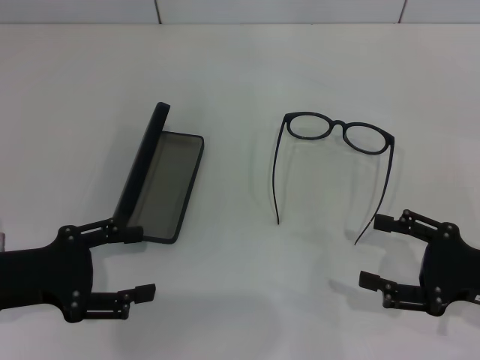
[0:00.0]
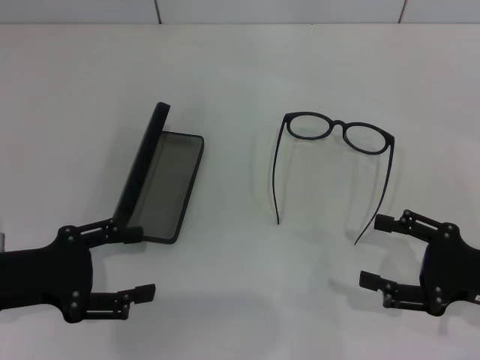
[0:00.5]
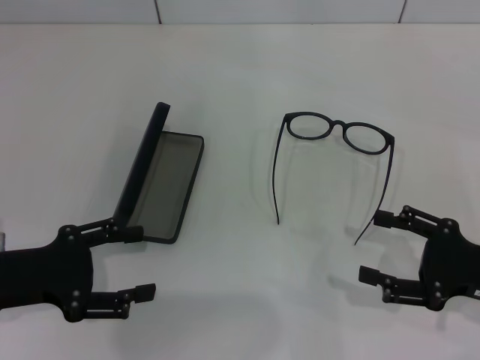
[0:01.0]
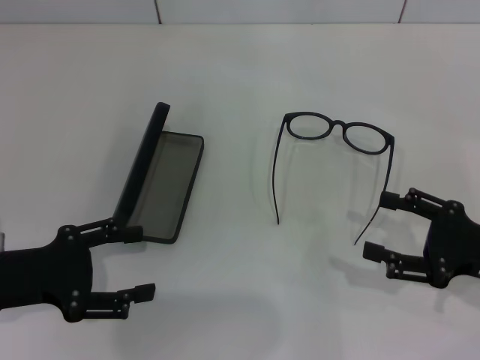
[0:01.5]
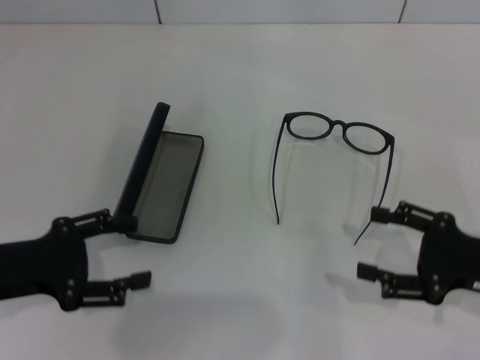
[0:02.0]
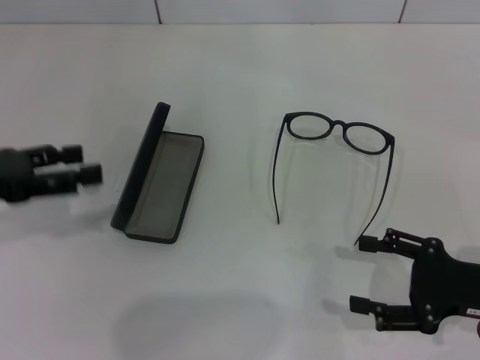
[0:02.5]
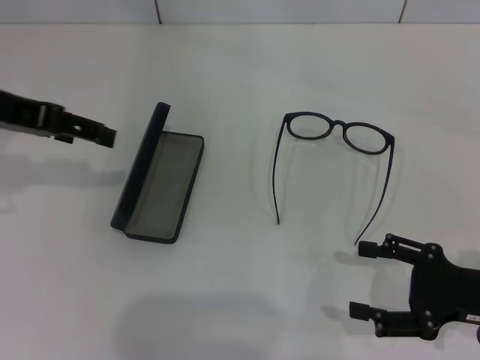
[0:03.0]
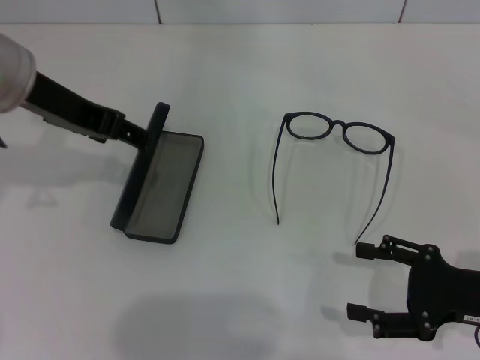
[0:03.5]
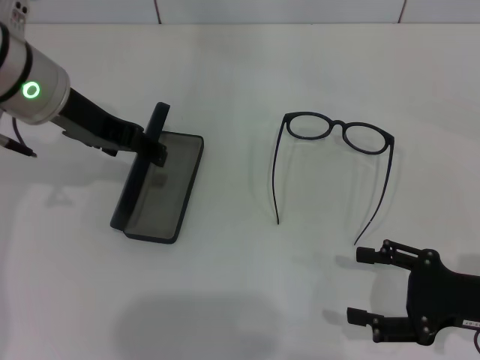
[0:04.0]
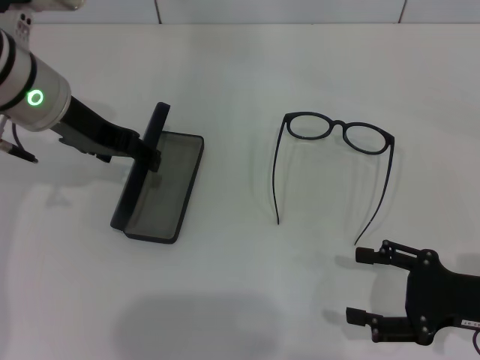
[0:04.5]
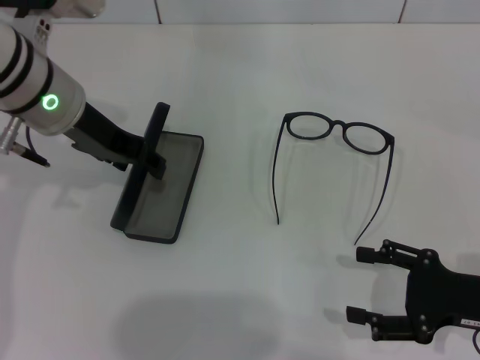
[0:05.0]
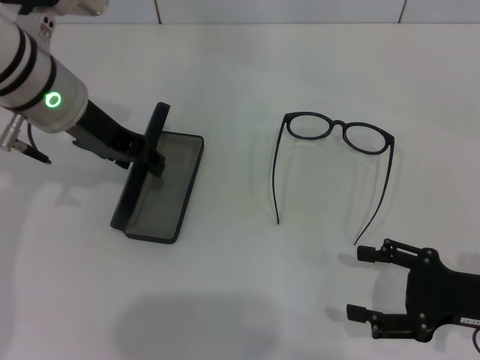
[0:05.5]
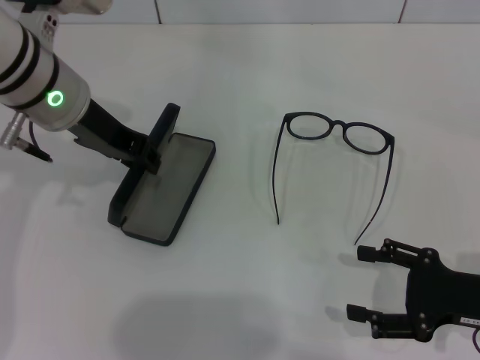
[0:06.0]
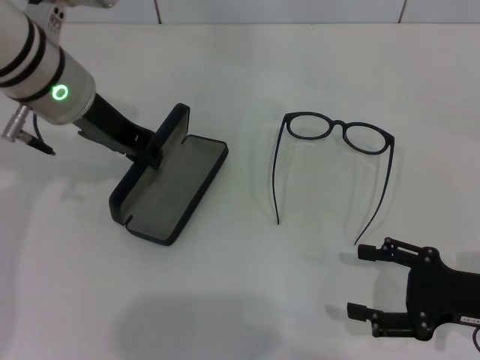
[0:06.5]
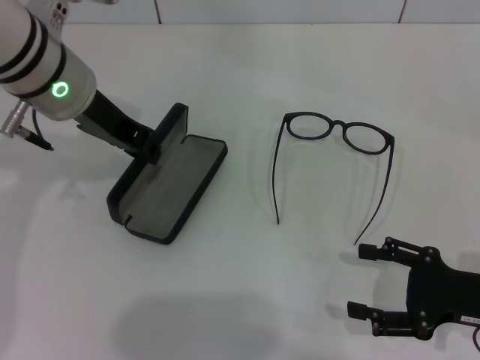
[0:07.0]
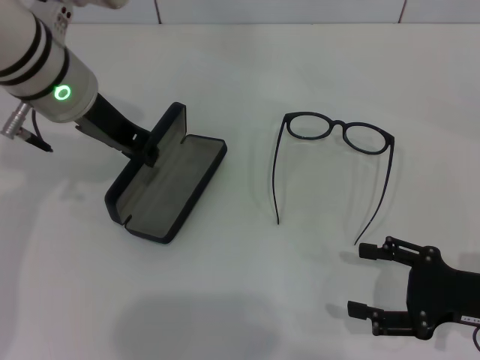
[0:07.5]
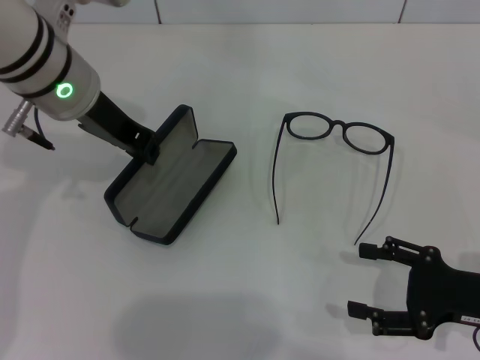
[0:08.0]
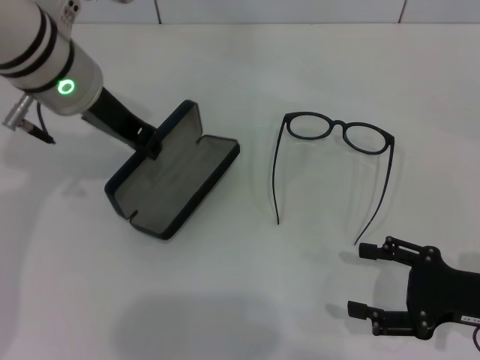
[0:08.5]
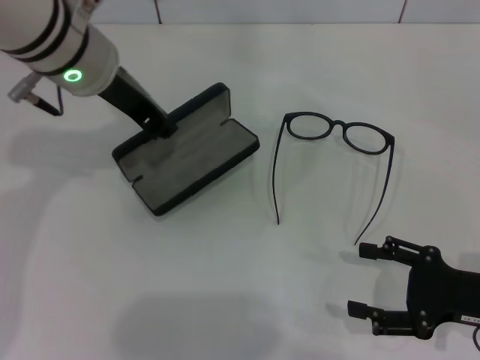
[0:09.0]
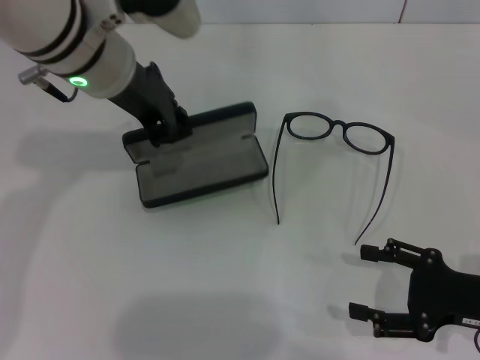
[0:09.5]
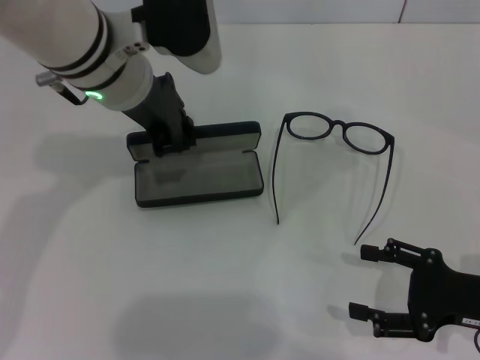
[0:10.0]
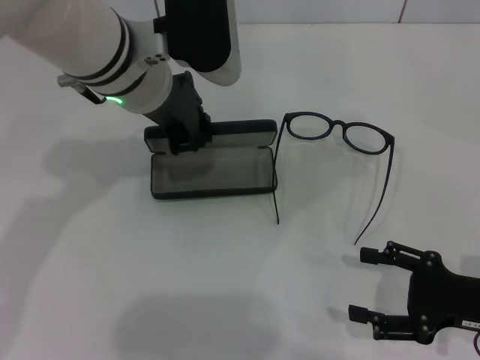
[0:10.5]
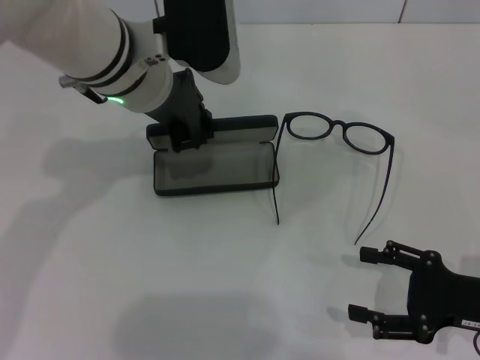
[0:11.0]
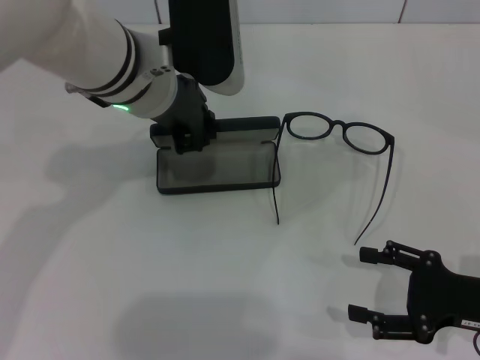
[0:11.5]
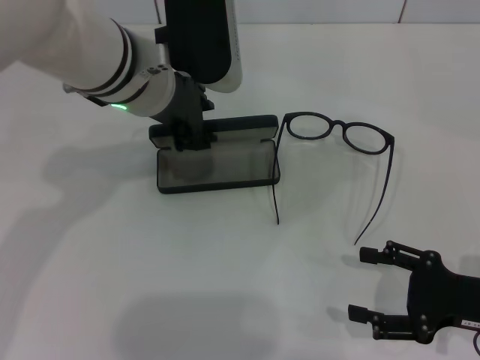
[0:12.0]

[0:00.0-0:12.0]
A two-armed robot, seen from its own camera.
Step, 0:00.0 to 0:07.0: Grab the glasses case with your left hand.
Step, 0:07.5 to 0:11.5: Place the glasses case in the center of the table with your left hand.
0:00.0 to 0:02.0: The grippers move only a little.
0:02.0 to 0:04.0: The left gripper goes about 20 cm forward, upward and to the right.
0:04.0 to 0:06.0: The left gripper closes up.
0:06.0 to 0:08.0: The grippers make only small movements.
0:10.0 to 0:12.0: The grippers make only small movements.

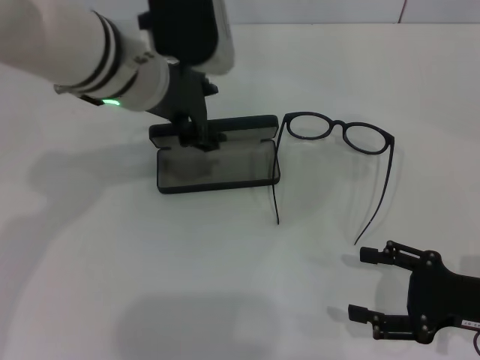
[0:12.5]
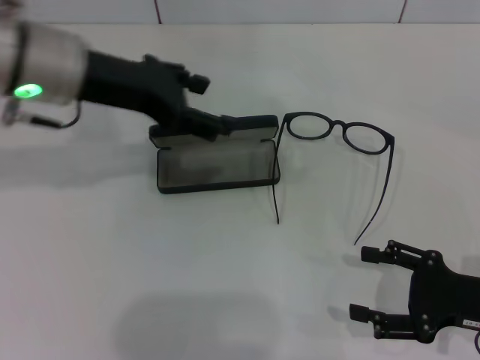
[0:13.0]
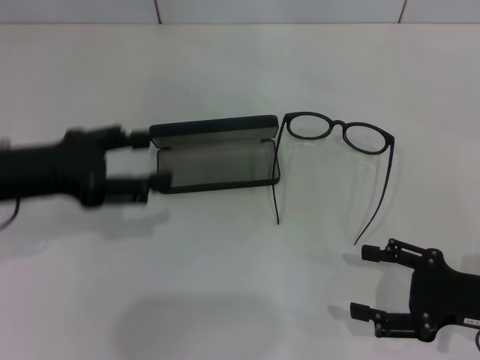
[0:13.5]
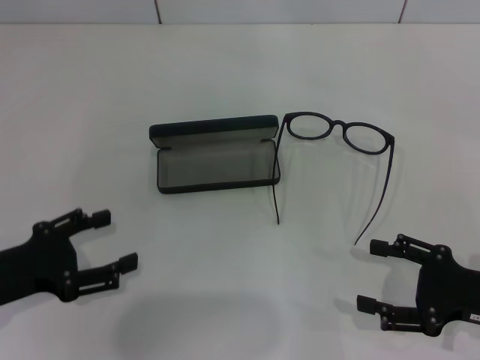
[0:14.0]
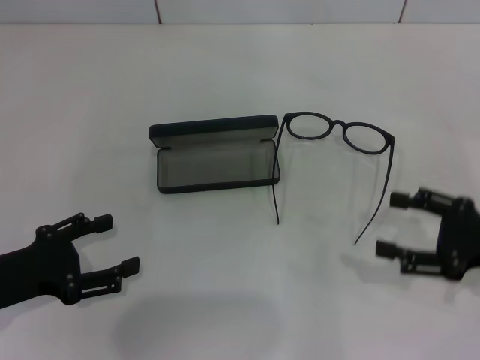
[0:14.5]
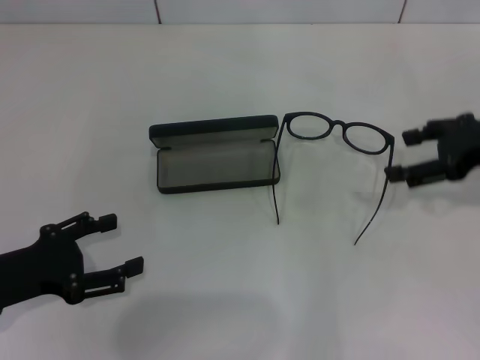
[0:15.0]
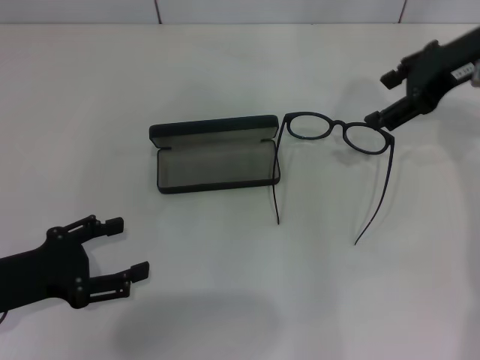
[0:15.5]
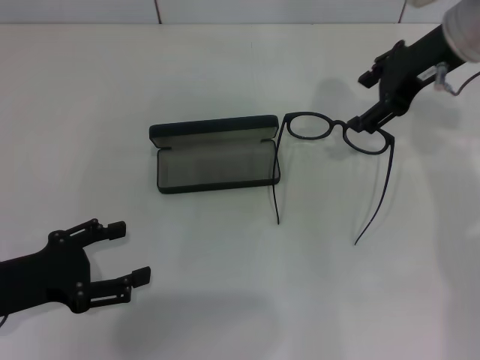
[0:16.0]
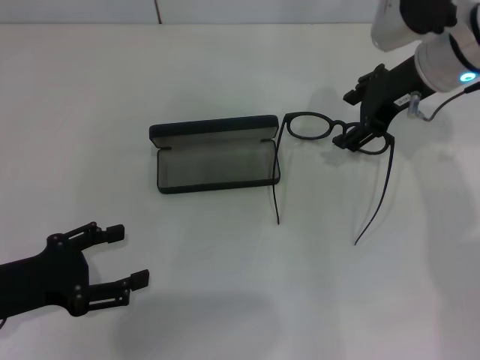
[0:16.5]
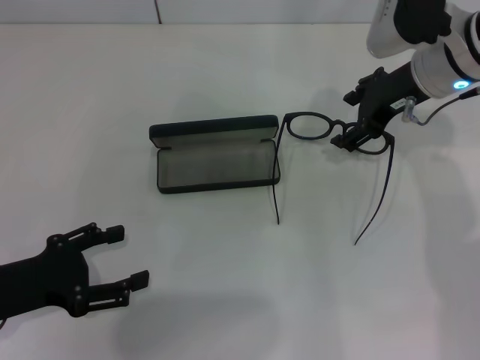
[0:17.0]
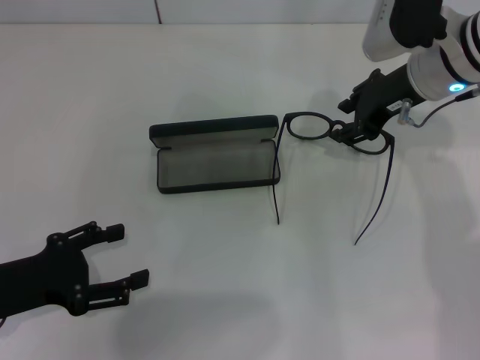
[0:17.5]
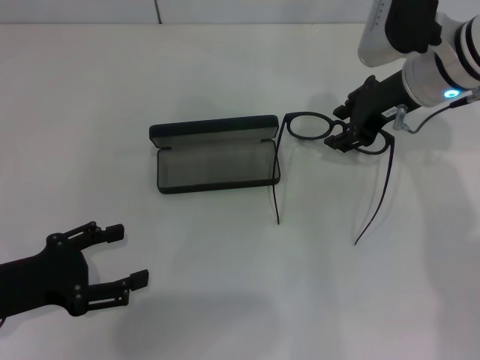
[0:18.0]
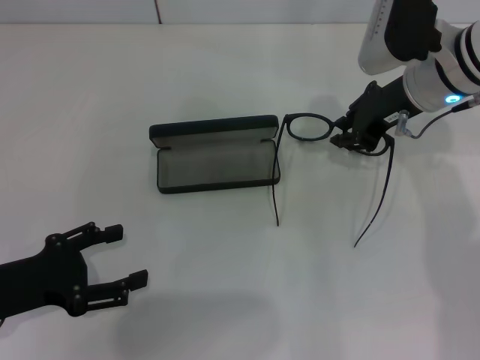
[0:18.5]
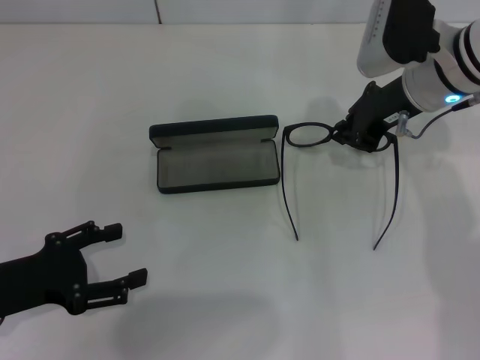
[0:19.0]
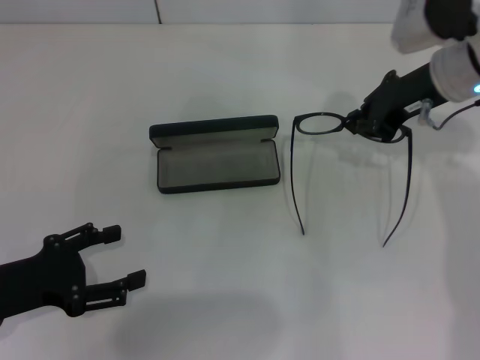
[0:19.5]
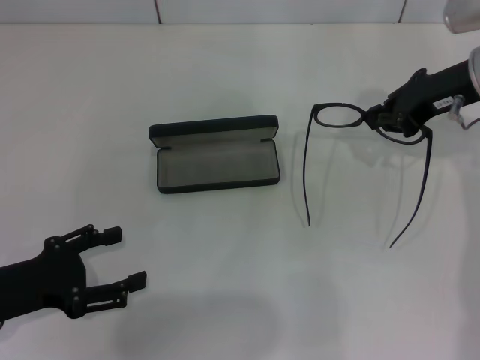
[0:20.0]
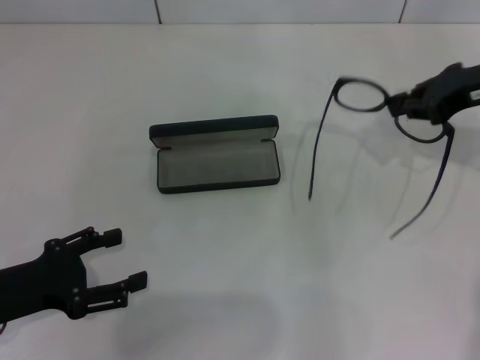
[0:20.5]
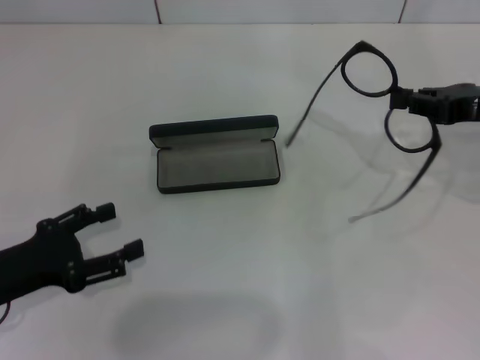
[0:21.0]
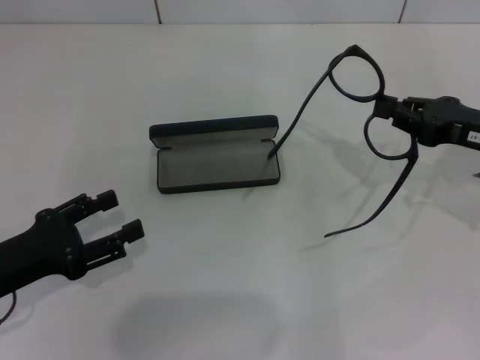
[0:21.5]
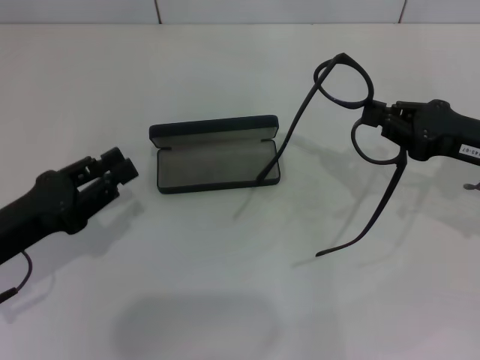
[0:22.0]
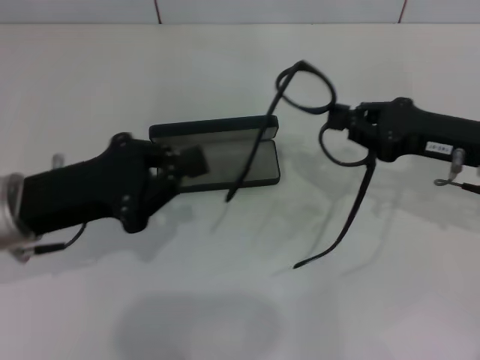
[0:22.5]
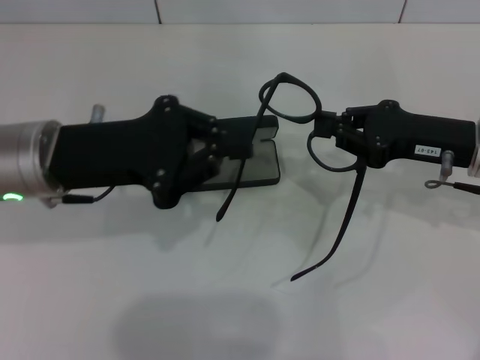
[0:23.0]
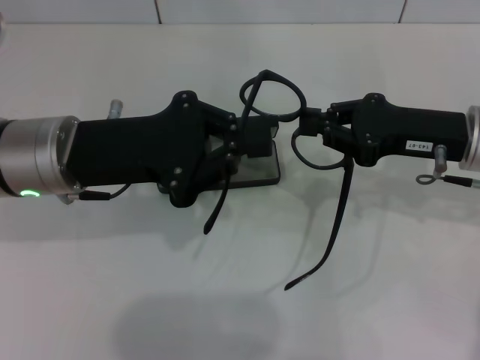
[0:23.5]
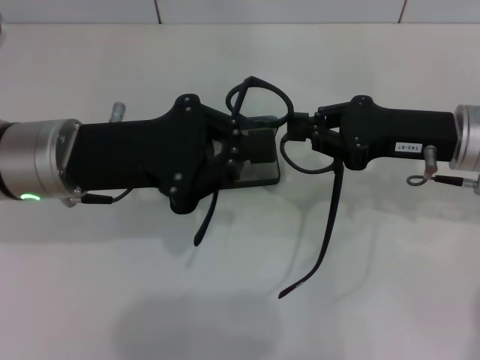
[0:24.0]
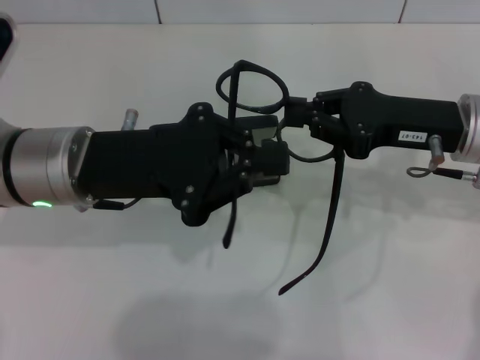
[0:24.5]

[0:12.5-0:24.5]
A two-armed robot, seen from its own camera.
Step, 0:12.5 to 0:18.5: Grab the eyeglass frame with your right hand.
0:12.5 to 0:14.5: The right gripper moves approximately 5 cm, while the left gripper travels to the left, backward and downward by roughly 30 cm, and opens its fingers.
0:14.5 to 0:16.5: The right gripper is displaced forward, to the left and upward by roughly 25 cm.
0:16.5 to 0:18.5: The right gripper closes its fingers.
0:18.5 to 0:20.5: The right gripper shifts approximately 10 cm to the right, and closes its fingers.
0:20.5 to 0:22.5: The right gripper goes roughly 10 cm downward and backward; the left gripper is displaced forward, to the right and upward by roughly 10 cm, and closes up.
0:22.5 to 0:24.5: The left gripper heads to the right, covering roughly 5 cm.

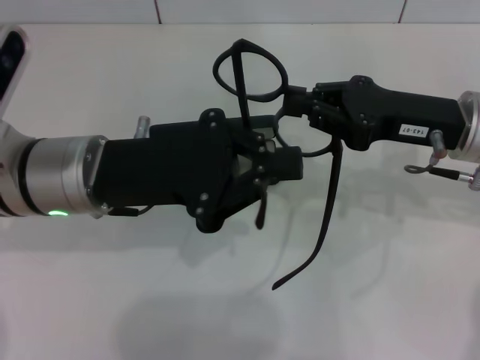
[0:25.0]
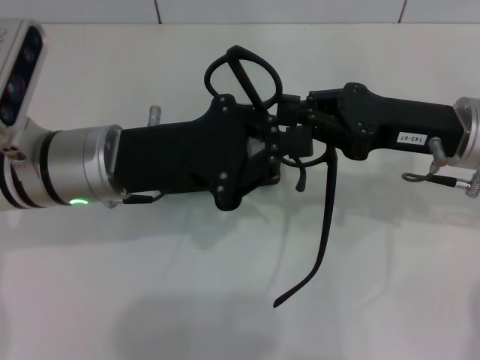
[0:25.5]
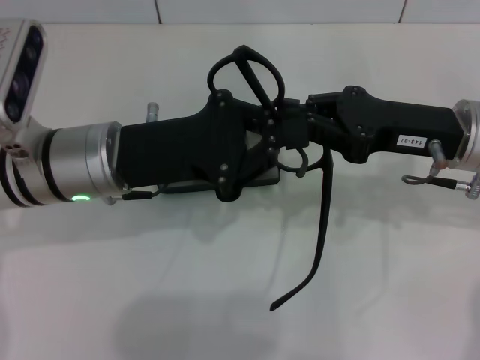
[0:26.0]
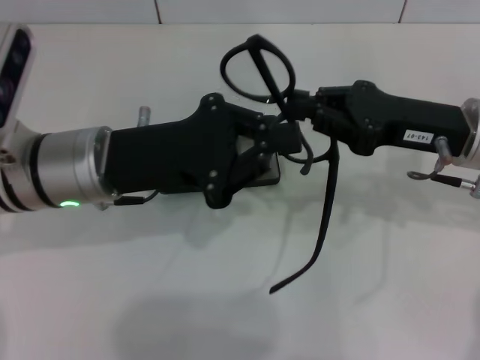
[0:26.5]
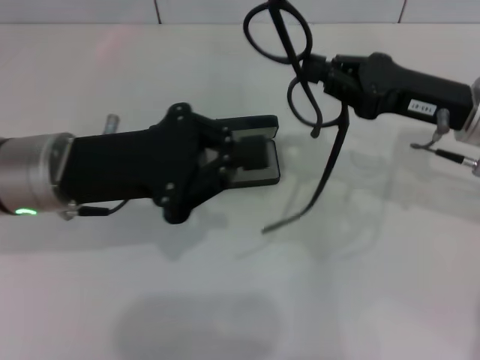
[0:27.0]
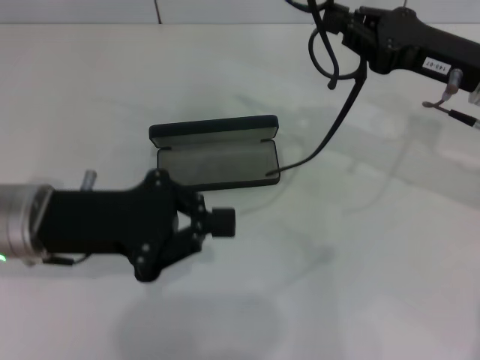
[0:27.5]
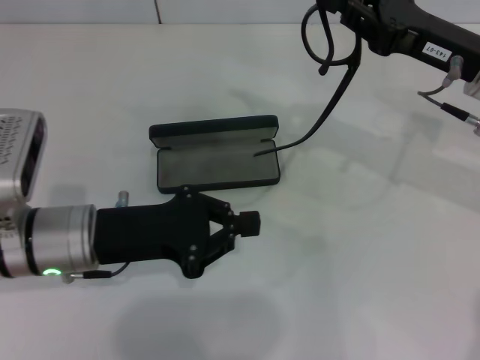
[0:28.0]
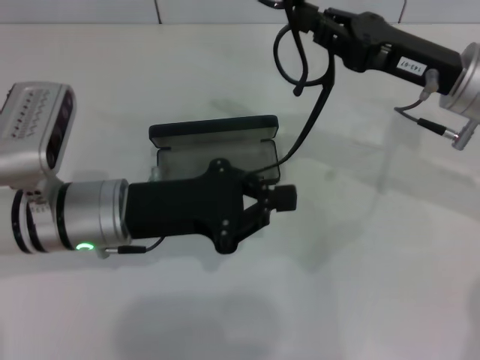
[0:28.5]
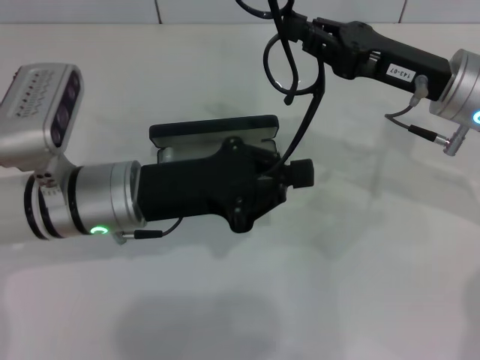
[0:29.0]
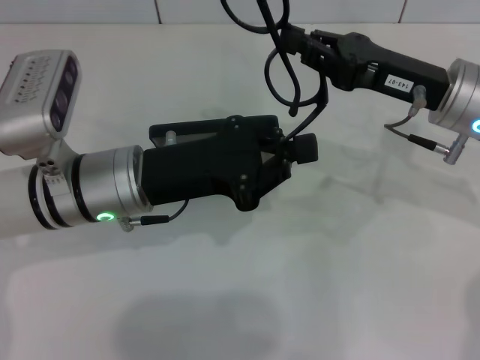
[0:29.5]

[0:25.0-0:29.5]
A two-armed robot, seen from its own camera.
0:27.0 to 0:29.5: The left gripper moves roughly 5 cm.
